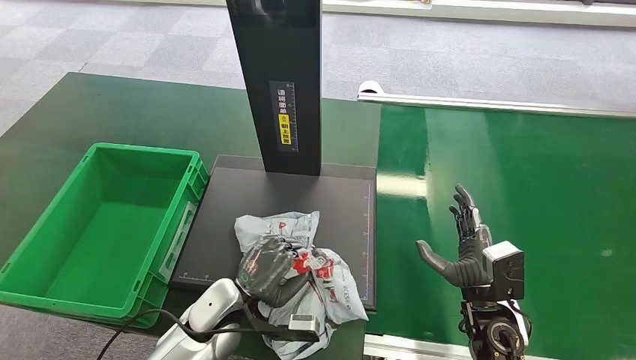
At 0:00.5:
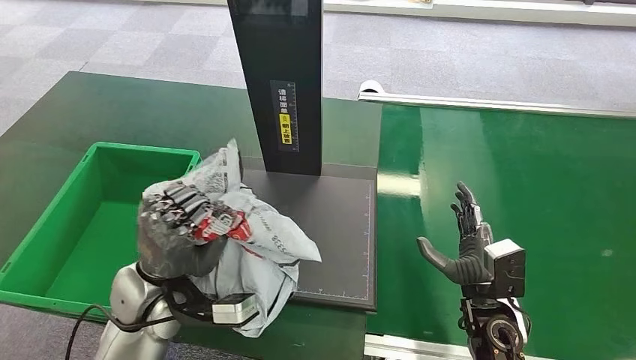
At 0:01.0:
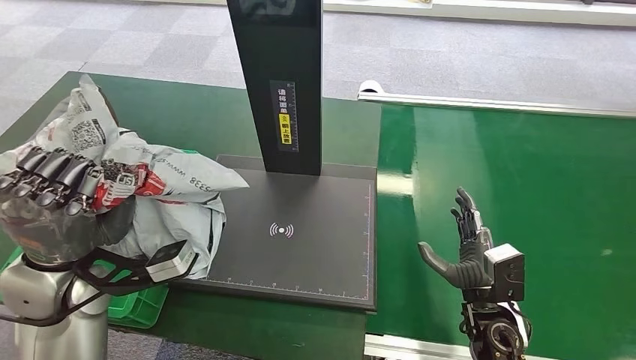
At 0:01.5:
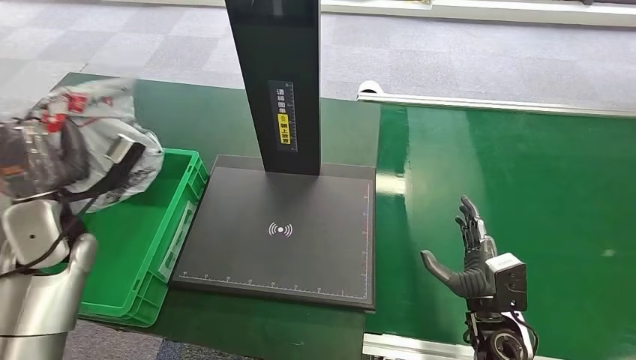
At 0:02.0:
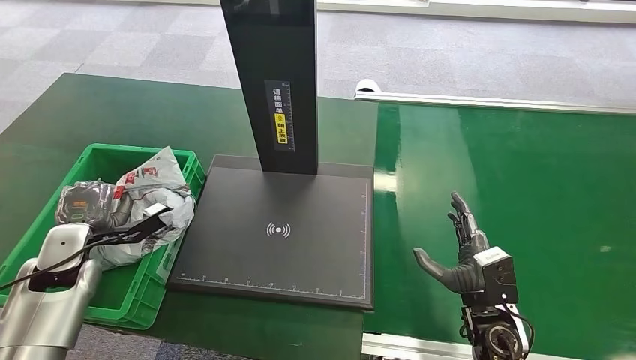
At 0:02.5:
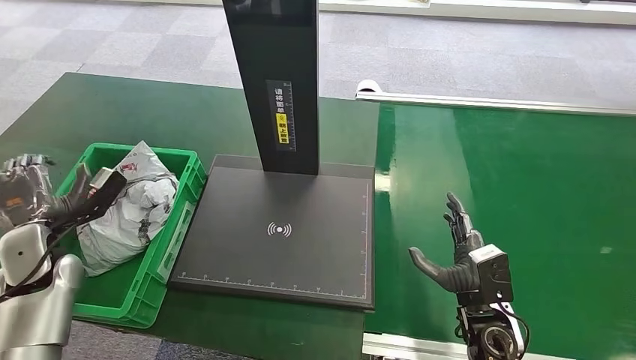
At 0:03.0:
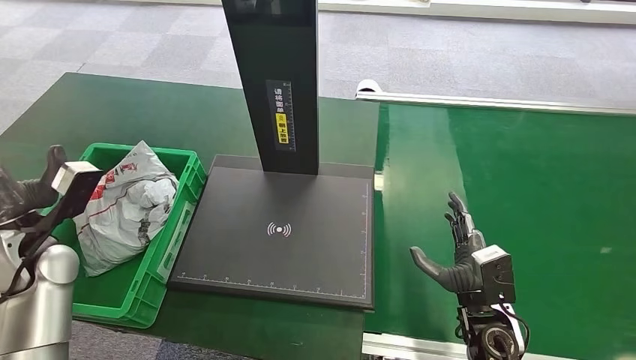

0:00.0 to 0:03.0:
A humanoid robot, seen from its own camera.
Step, 0:01.0 to 0:03.0: Place the package into the parcel locker.
